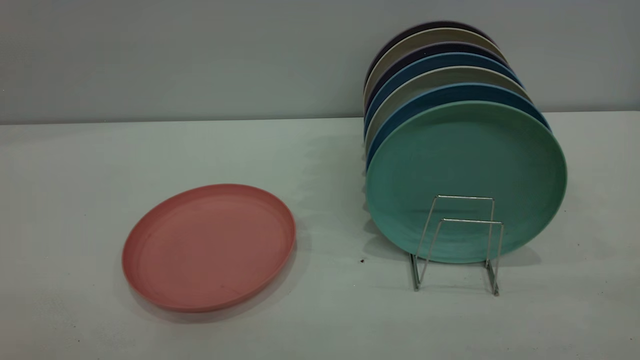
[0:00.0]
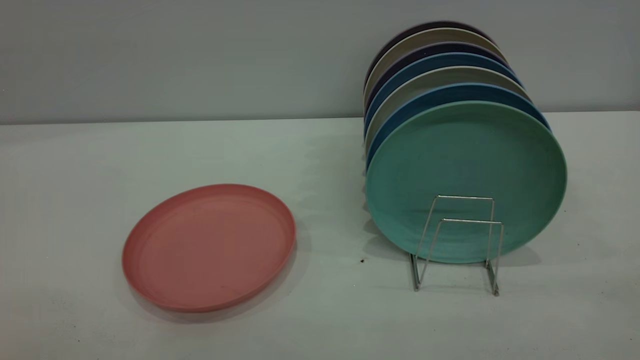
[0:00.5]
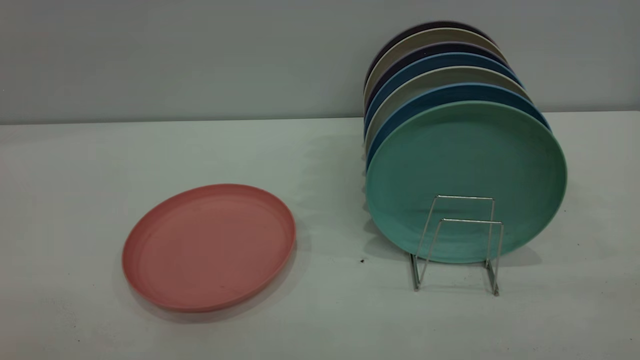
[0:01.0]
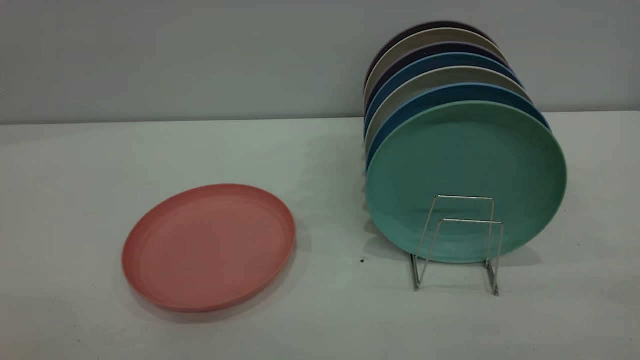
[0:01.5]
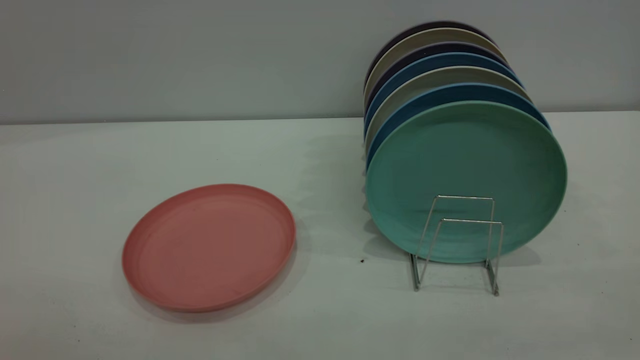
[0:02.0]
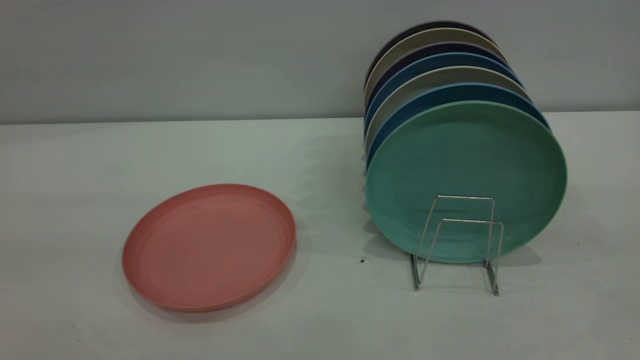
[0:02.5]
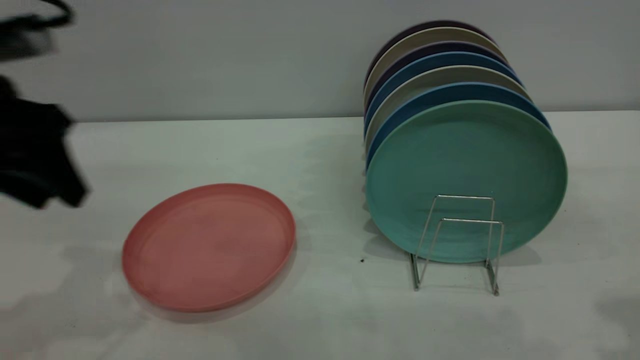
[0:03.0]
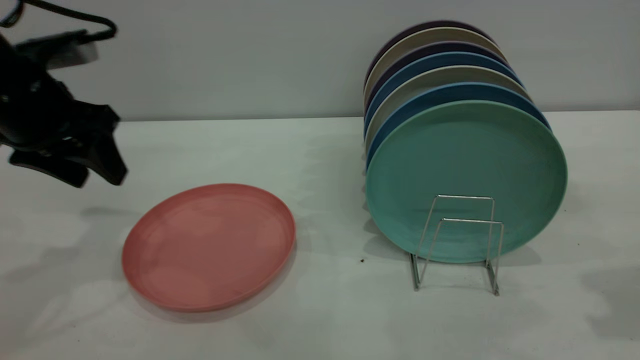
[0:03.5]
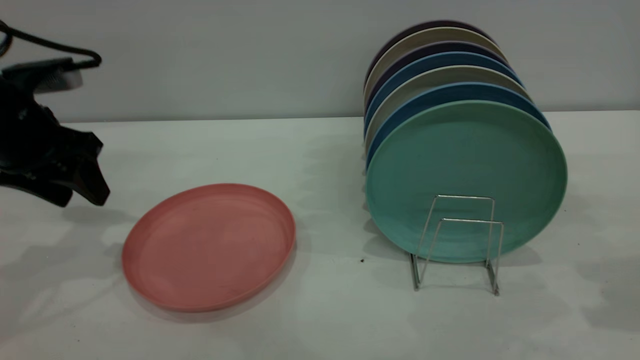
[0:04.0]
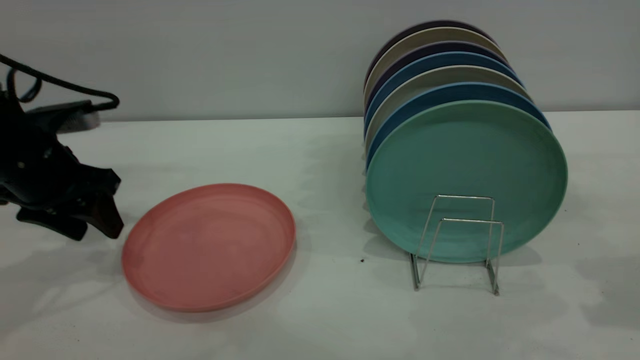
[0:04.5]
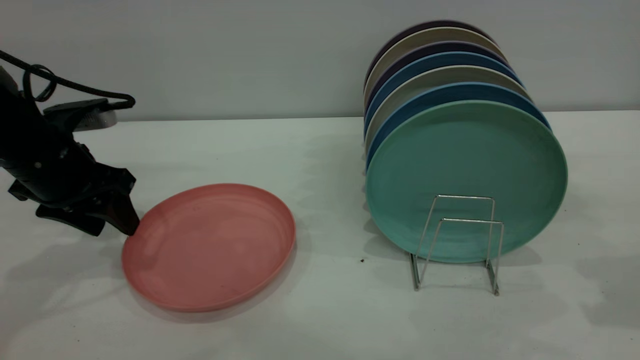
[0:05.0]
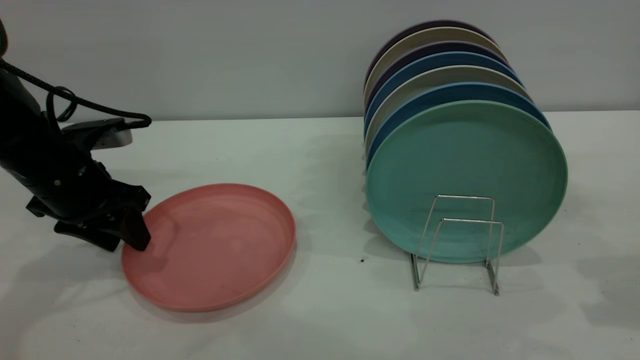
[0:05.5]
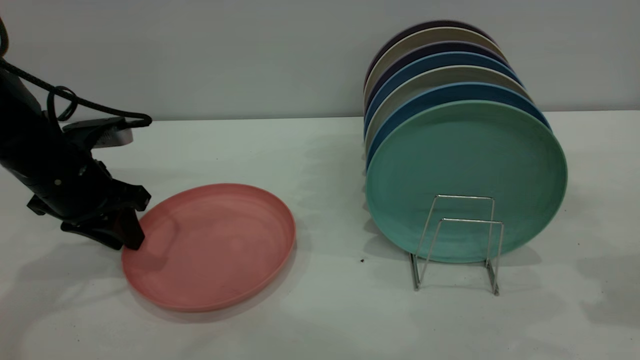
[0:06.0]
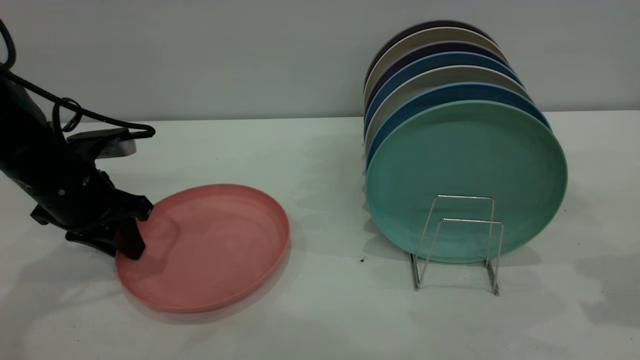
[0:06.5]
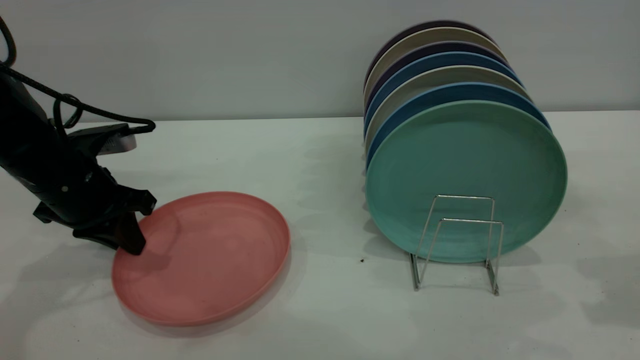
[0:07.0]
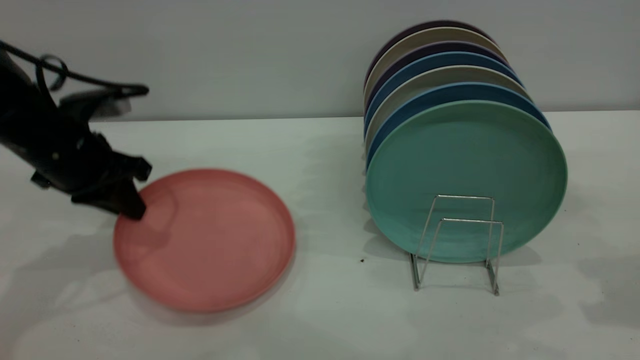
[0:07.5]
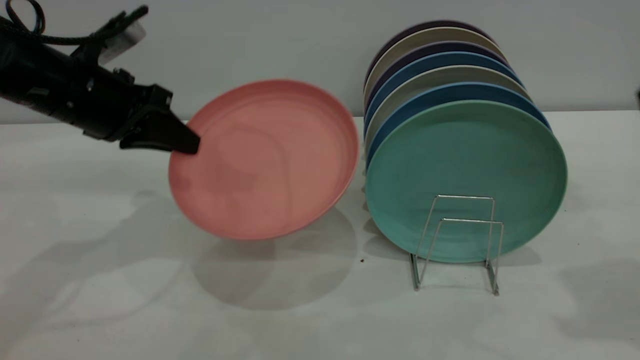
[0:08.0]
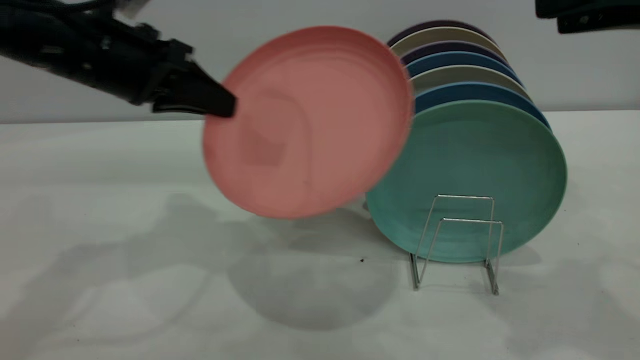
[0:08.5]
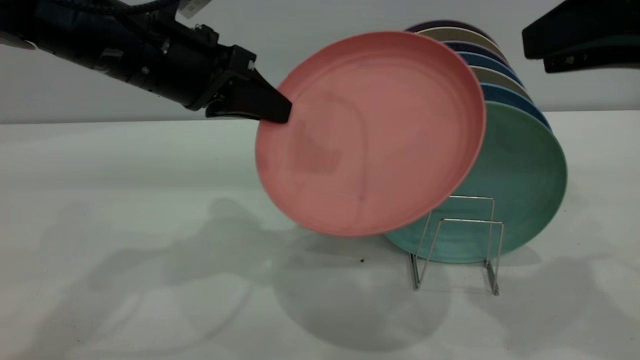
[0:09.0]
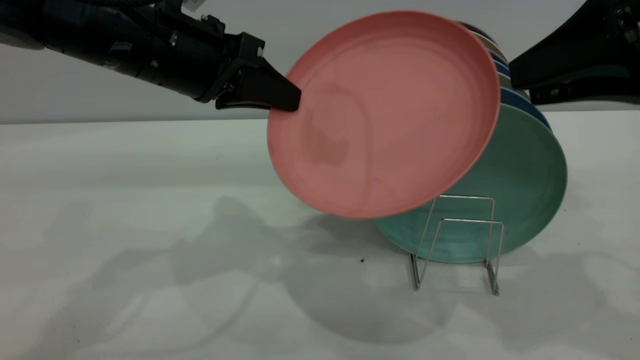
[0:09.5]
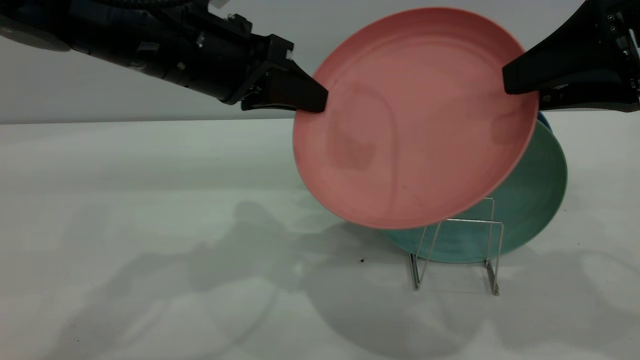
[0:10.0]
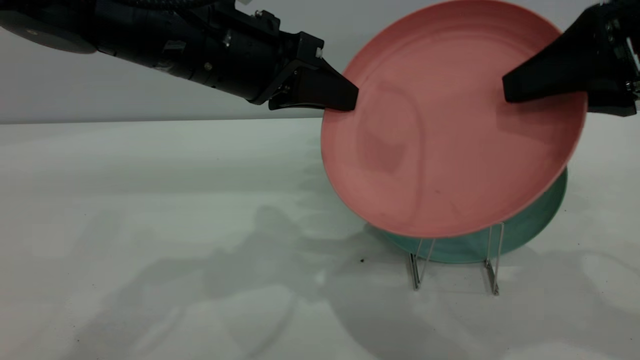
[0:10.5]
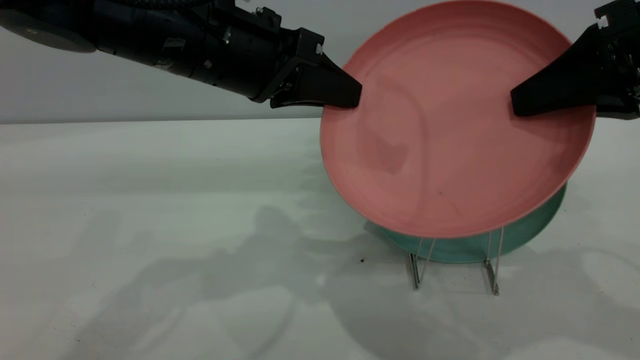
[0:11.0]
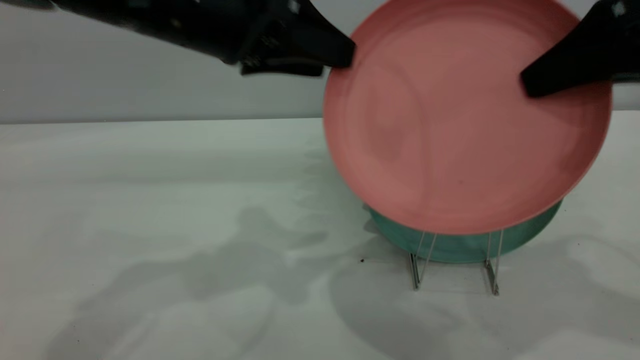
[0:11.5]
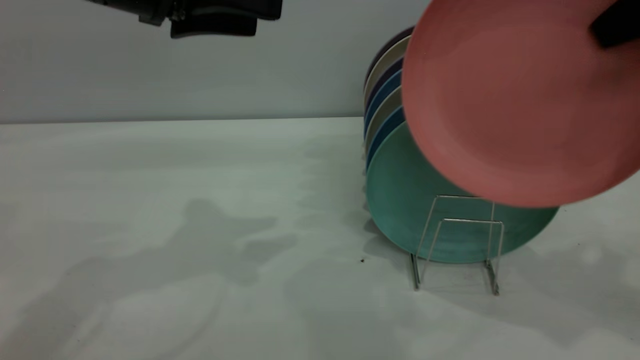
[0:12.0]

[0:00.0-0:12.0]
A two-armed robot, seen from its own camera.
Task of the whole recording: put the plate on the plate rack.
Step, 0:00.0 to 0:07.0: Pick up the plate with the left gripper.
Step, 0:07.5 to 0:11.5: Pass the plate from the left gripper to the right gripper.
0:02.0 to 0:04.0: The left gripper travels forward and downward by some 40 cm.
0:04.0 to 0:06.0: The left gripper goes approximately 5 cm downward, and closes its fingers.
0:06.0 to 0:08.0: The right gripper changes place by some 5 cm. The left gripper moves upward, roughly 5 cm, and closes.
0:08.0 to 0:10.0: The left gripper heads to the right, covering approximately 10 cm. The right gripper shifts by about 5 cm.
0:10.0 to 0:12.0: Both grippers travel together upward, roughly 5 cm. The left gripper opens, while the right gripper closes its fingers.

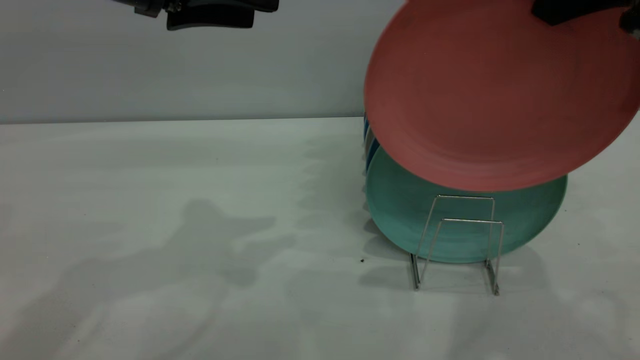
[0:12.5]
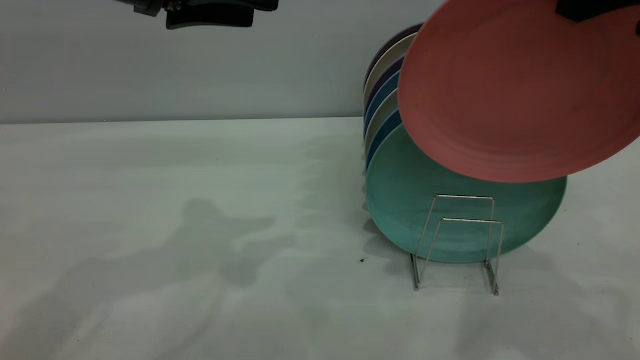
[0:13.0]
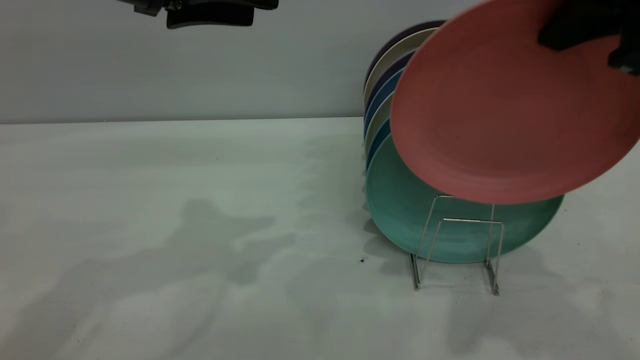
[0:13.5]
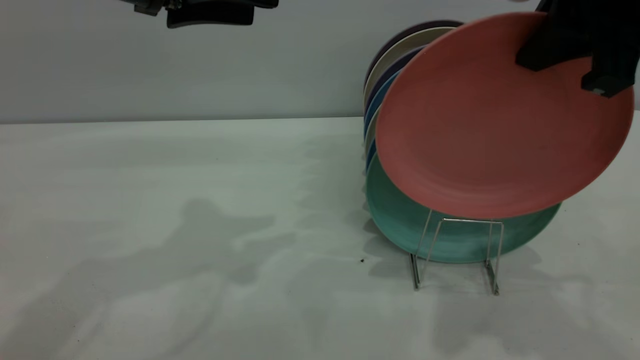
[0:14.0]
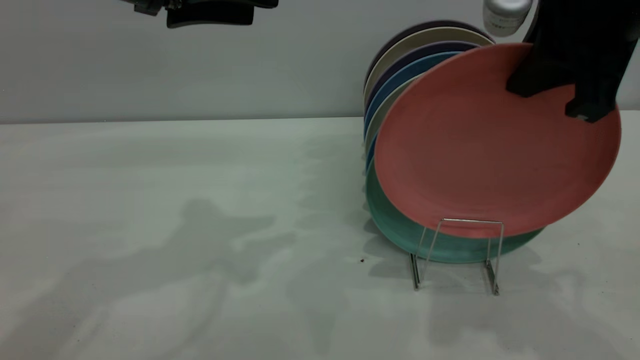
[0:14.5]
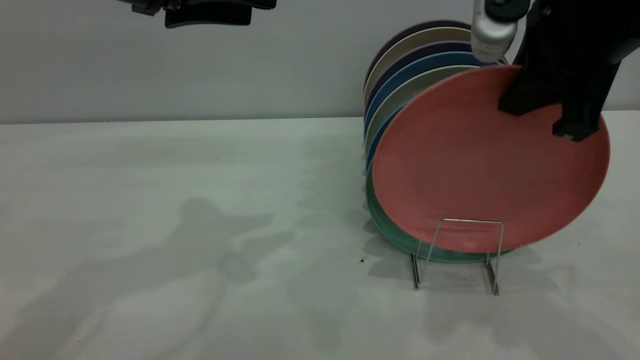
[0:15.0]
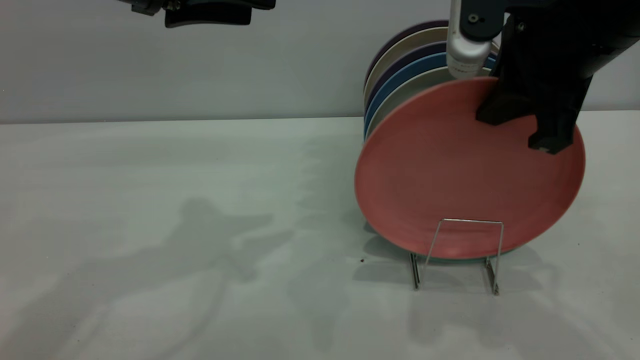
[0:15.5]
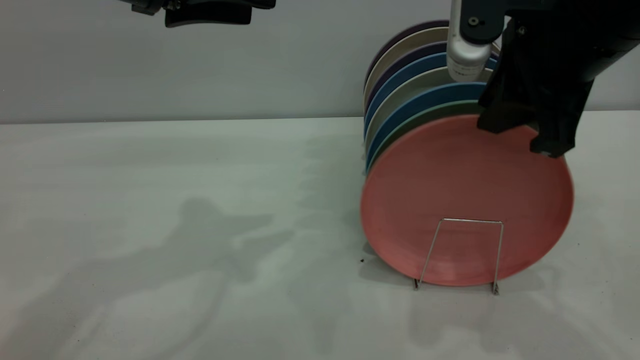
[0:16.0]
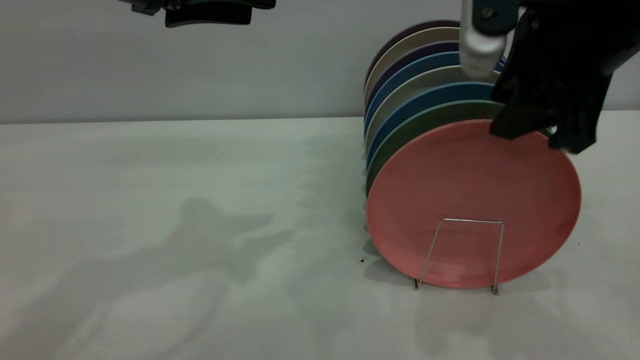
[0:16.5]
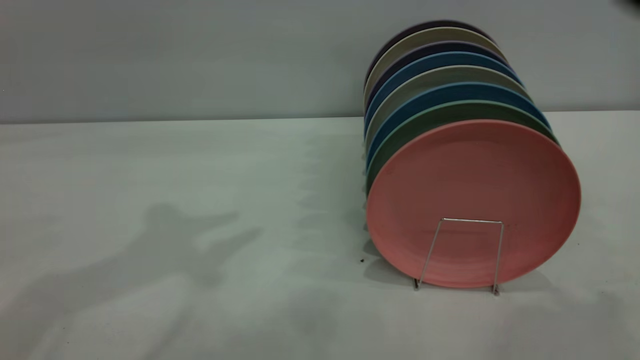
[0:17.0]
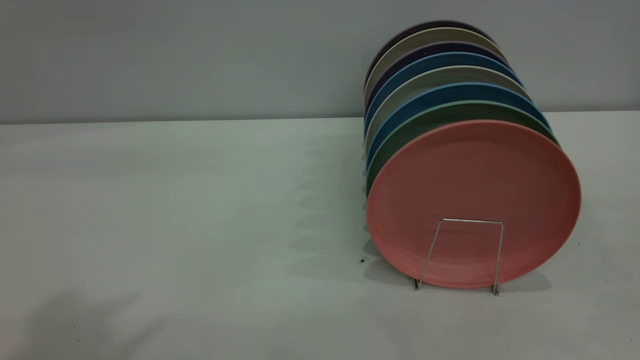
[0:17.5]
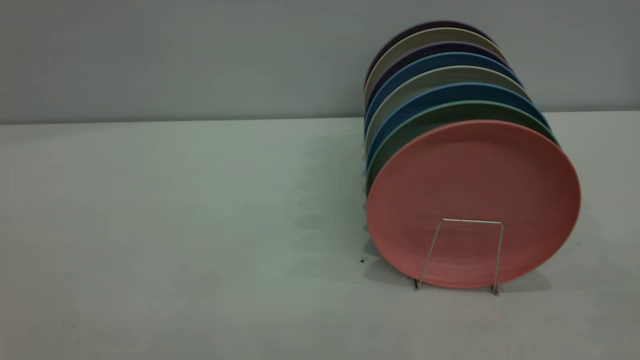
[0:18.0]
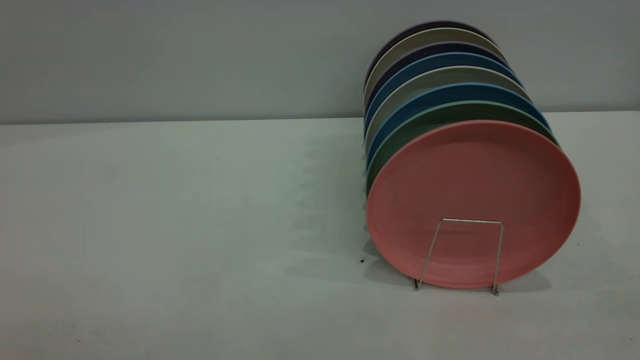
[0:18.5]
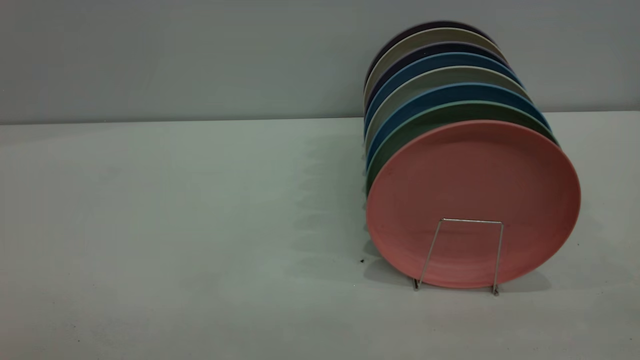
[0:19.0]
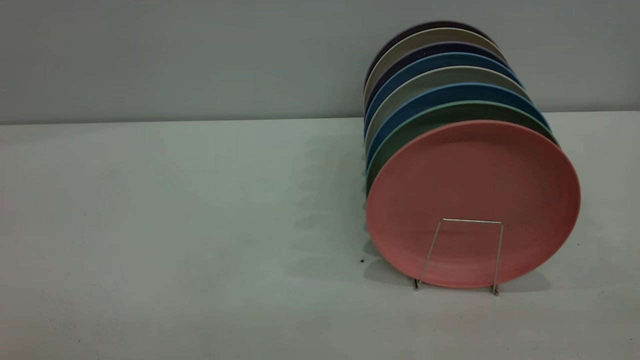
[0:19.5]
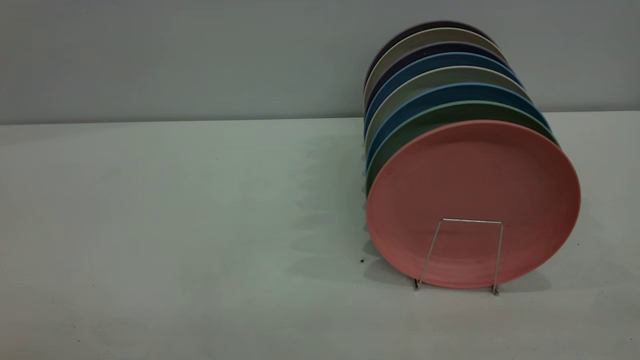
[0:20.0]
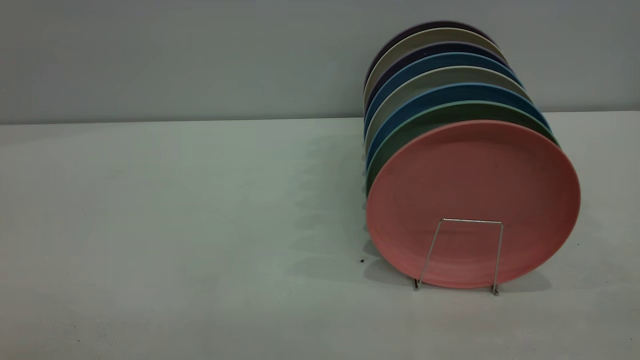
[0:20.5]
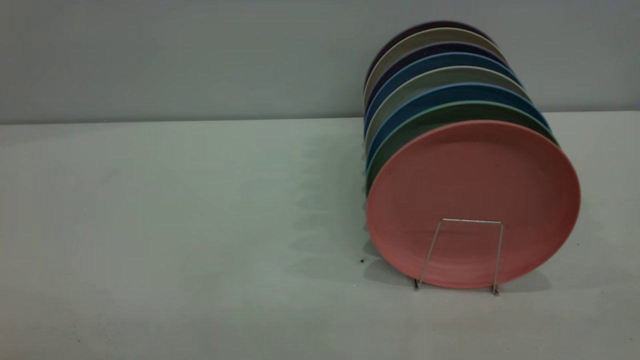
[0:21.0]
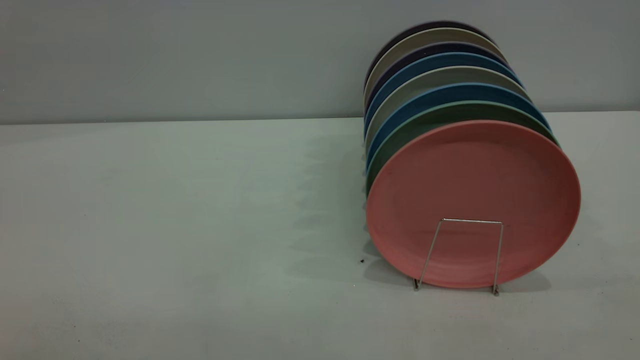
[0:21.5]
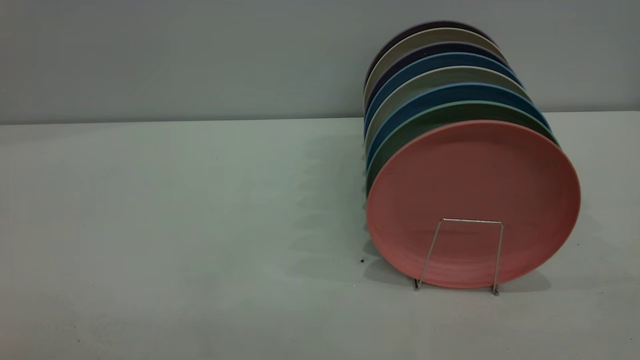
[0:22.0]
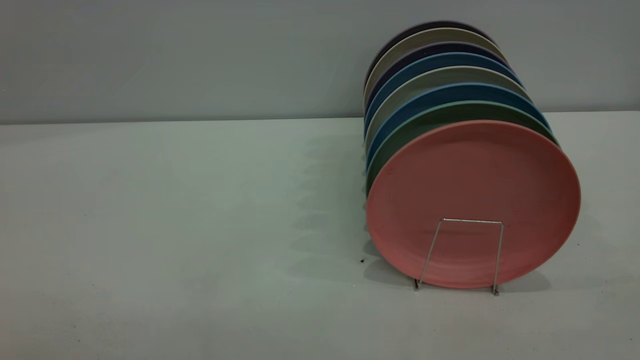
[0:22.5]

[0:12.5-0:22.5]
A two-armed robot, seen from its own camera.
Task of the whole recording: put the plate on the plate rack.
Step, 0:12.5 to 0:16.5: Place the plate on the shelf.
0:12.5 to 0:14.5: The right gripper goes about 5 cm downward.
0:14.5 to 0:16.5: The right gripper opens its fingers.
0:16.5 to 0:18.5: The left gripper shifts about 40 cm backward. The right gripper travels backward and to the right by approximately 30 cm.
